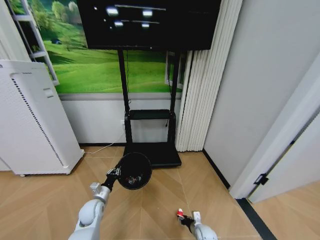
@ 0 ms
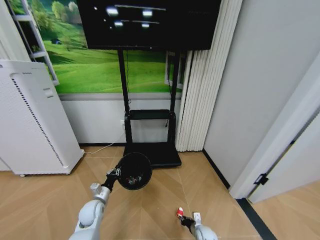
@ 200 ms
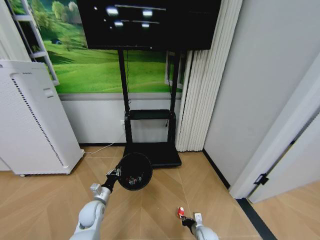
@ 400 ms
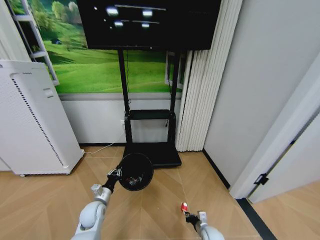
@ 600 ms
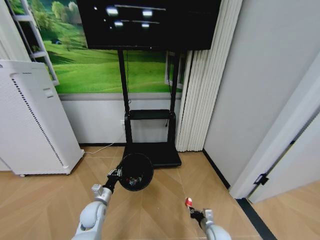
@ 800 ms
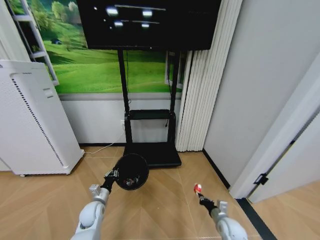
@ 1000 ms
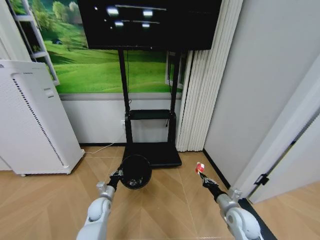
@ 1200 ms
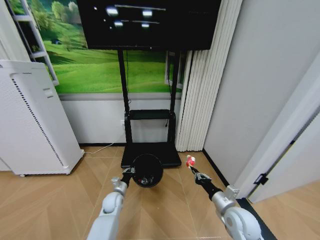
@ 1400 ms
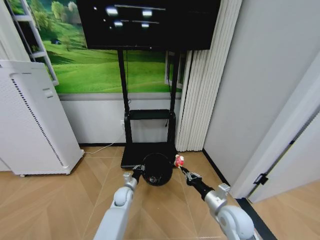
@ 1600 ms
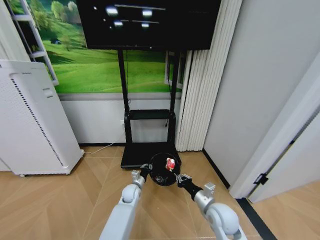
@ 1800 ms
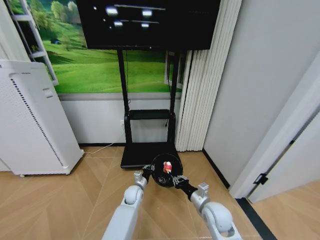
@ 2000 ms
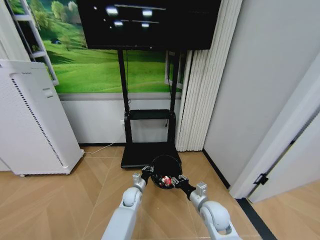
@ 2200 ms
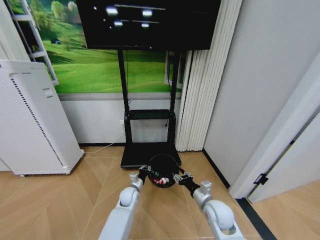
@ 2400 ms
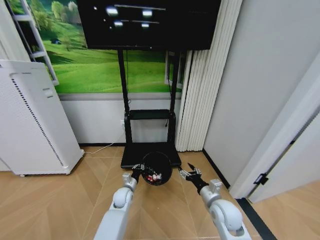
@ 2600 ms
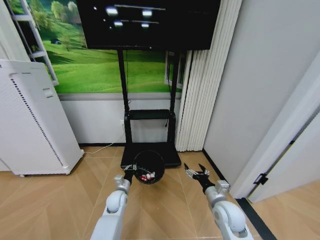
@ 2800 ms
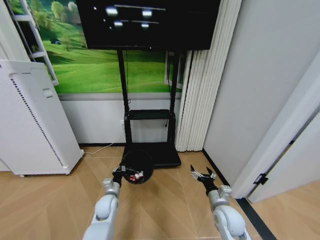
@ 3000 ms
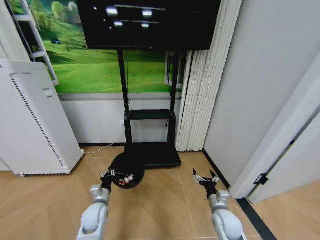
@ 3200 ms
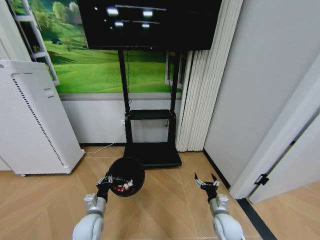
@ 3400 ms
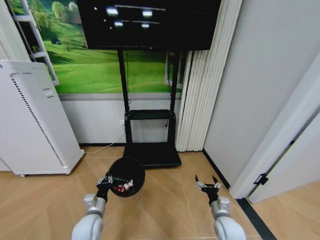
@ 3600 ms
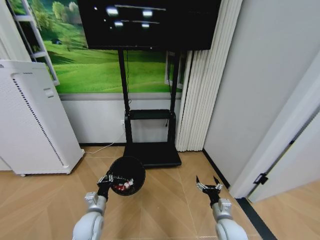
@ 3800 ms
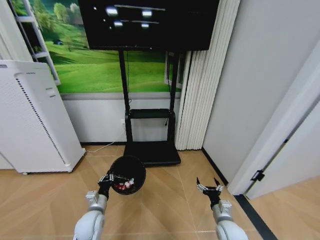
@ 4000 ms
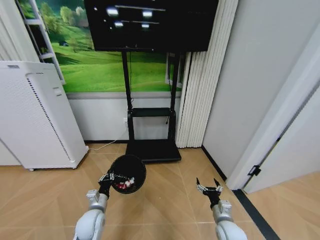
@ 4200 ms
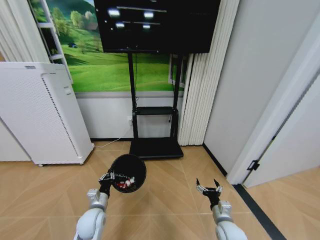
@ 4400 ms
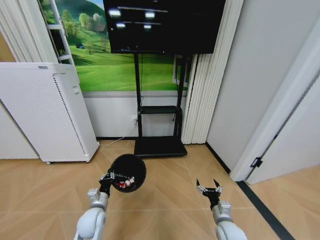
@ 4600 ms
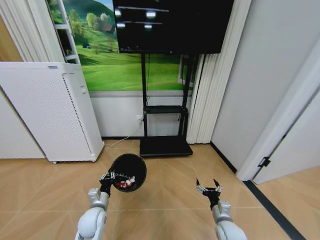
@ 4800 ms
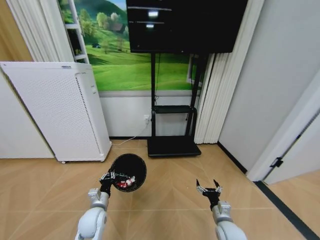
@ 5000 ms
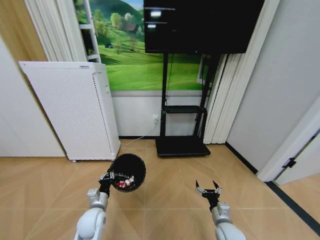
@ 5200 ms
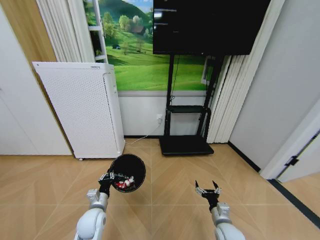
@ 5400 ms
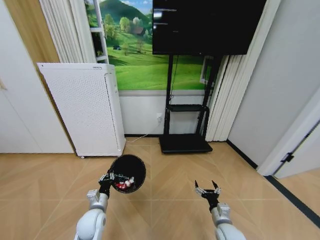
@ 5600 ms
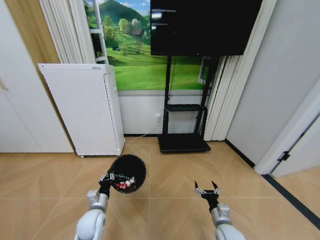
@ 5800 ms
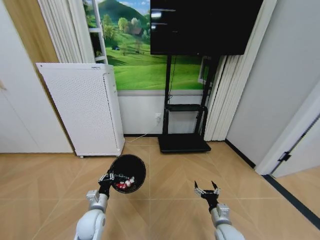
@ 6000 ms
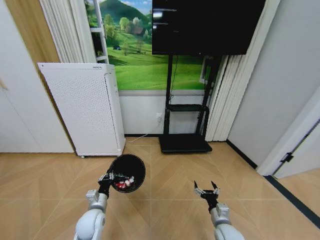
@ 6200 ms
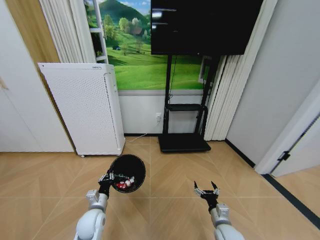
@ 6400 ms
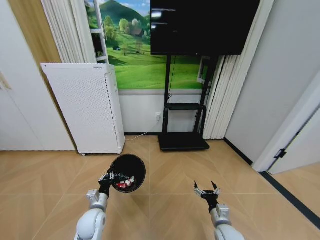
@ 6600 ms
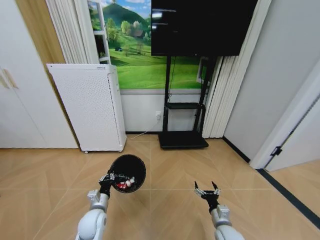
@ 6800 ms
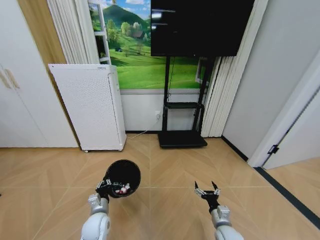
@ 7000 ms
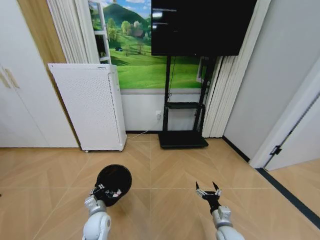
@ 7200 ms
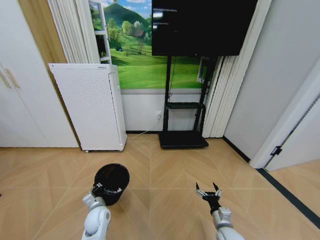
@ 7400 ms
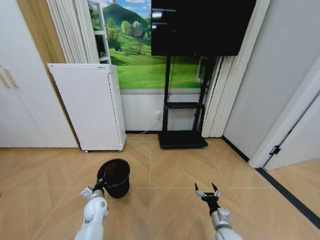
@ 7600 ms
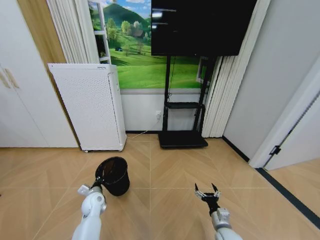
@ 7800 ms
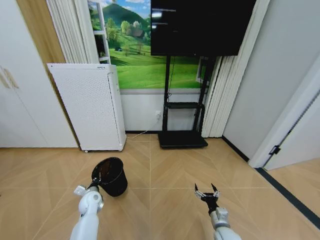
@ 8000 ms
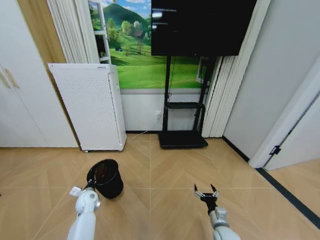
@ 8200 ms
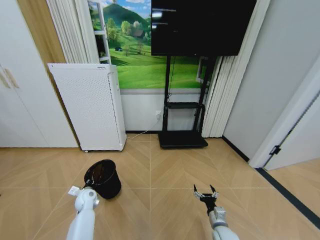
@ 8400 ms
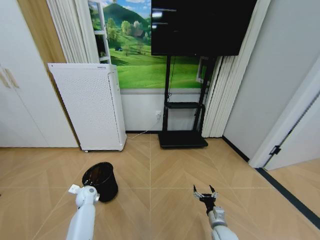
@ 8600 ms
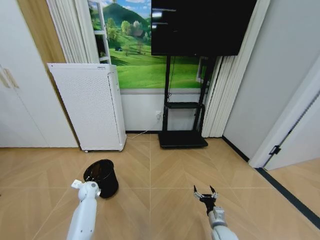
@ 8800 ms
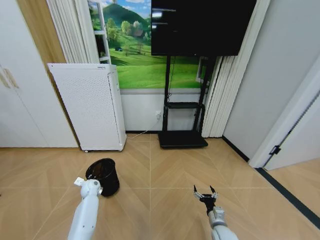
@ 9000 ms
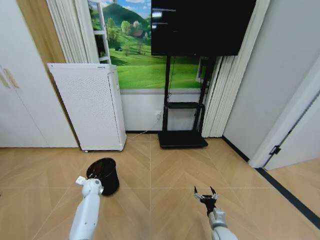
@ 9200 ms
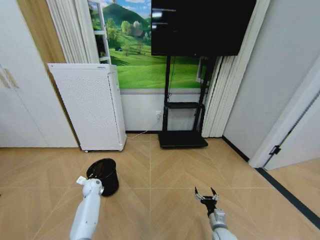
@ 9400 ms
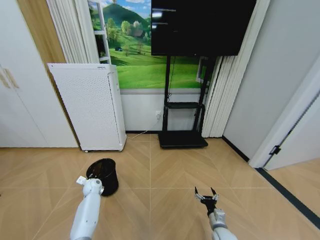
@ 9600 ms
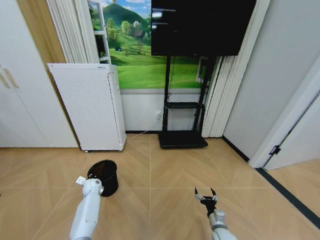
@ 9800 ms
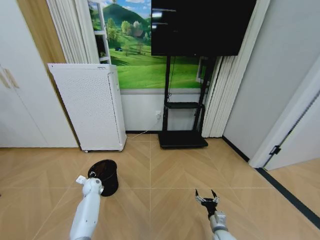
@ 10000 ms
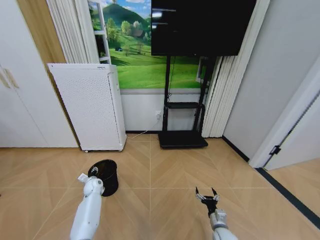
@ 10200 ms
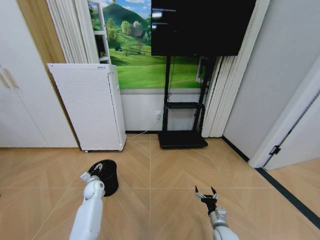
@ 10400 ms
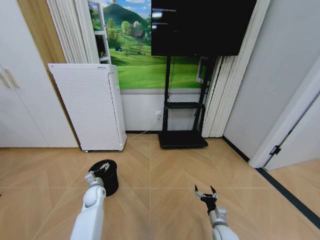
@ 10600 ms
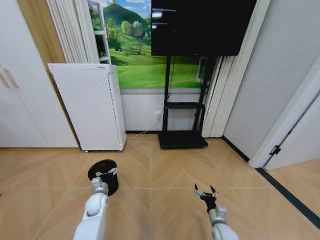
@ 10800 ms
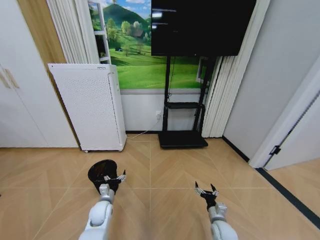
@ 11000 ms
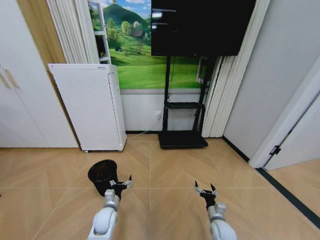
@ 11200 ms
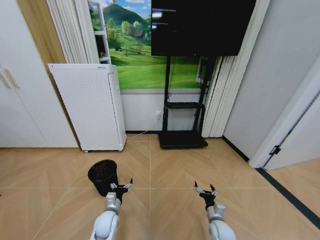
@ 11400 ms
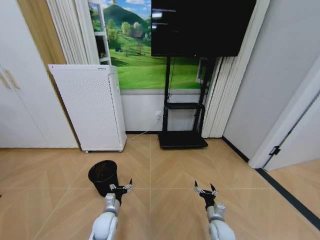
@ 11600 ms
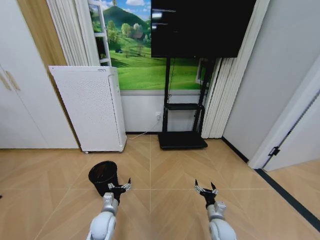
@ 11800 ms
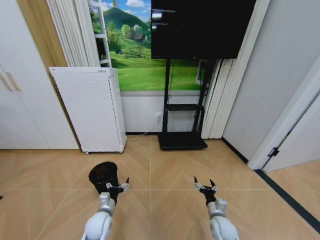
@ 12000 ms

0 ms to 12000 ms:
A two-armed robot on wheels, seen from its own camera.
Task of the whole recording: Pick up the trash bin and place the garbage on the floor into it.
0 ms to 1600 ms: The left gripper travels to the right and forward by some 15 cm. The right gripper moves upward, some 30 cm, and closes up.
1600 ms to 3000 ms: The right gripper opens its fingers. Meanwhile the left gripper is displaced backward and to the left by approximately 10 cm.
3000 ms to 4400 ms: The right gripper is displaced downward by approximately 5 cm, while the left gripper heads backward, covering some 10 cm.
6000 ms to 7600 ms: The left gripper shifts approximately 5 cm forward.
7600 ms to 9000 ms: The left gripper travels forward and to the left by roughly 15 cm.
9000 ms to 10400 ms: The left gripper opens.
10400 ms to 12000 ms: The left gripper is displaced backward and to the right by some 20 cm. Meanwhile the right gripper moves roughly 5 cm.

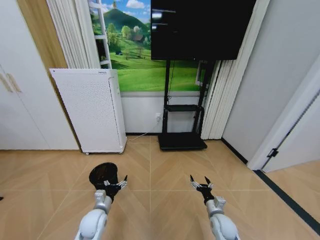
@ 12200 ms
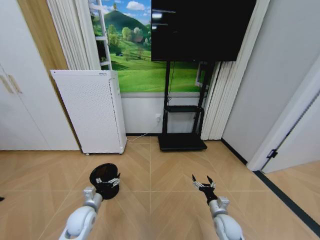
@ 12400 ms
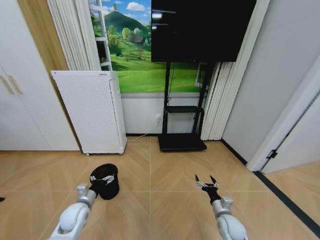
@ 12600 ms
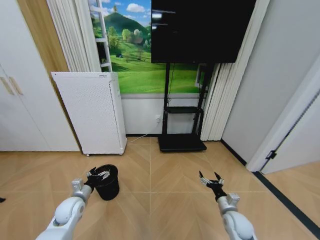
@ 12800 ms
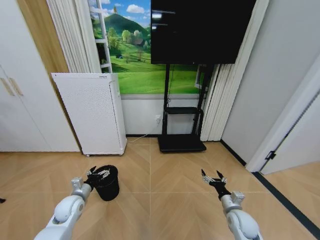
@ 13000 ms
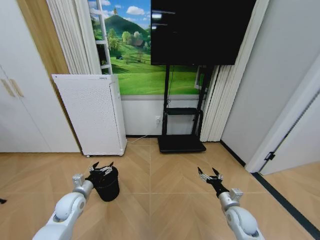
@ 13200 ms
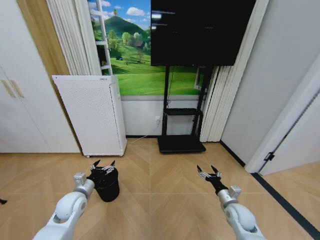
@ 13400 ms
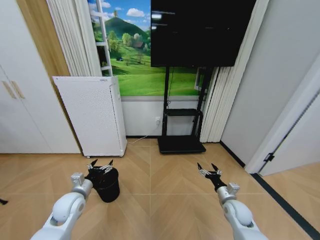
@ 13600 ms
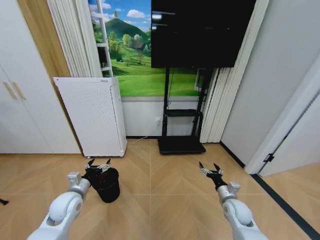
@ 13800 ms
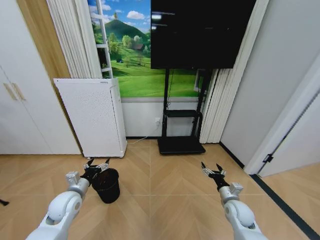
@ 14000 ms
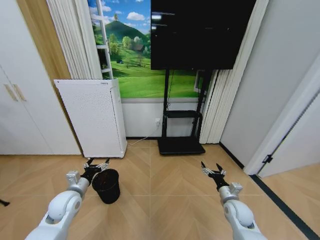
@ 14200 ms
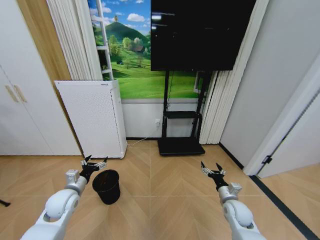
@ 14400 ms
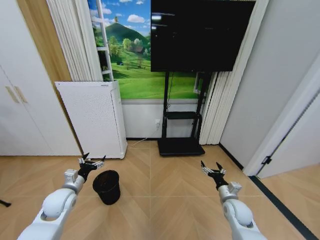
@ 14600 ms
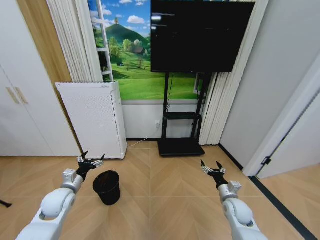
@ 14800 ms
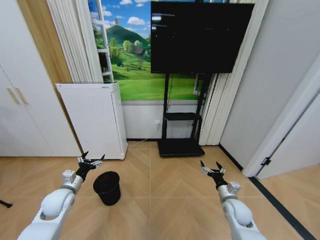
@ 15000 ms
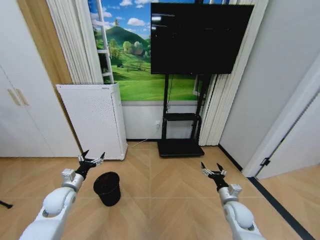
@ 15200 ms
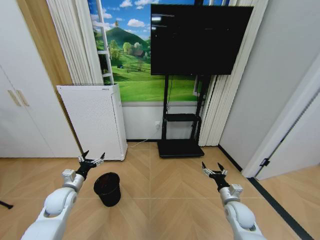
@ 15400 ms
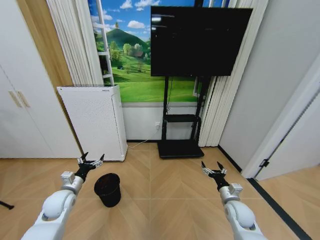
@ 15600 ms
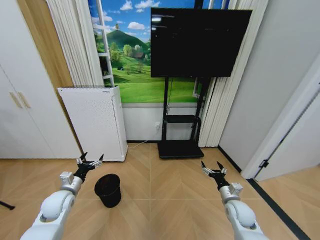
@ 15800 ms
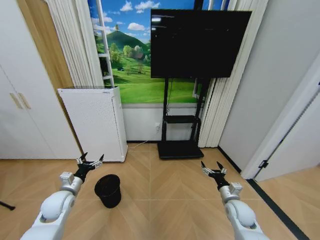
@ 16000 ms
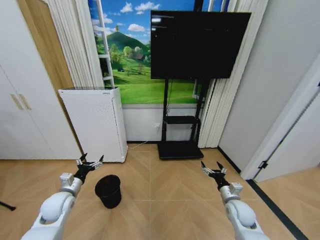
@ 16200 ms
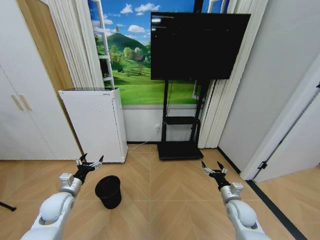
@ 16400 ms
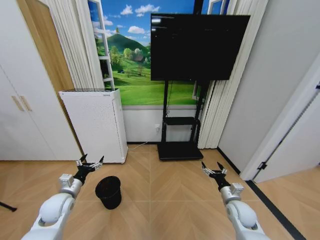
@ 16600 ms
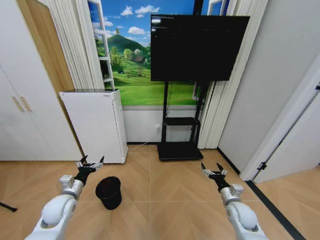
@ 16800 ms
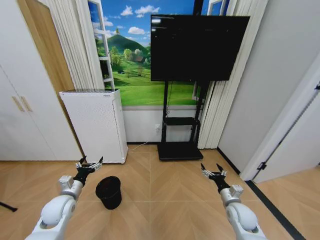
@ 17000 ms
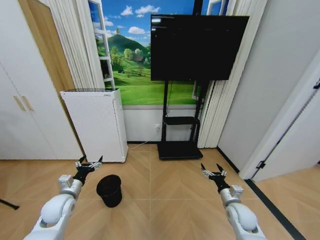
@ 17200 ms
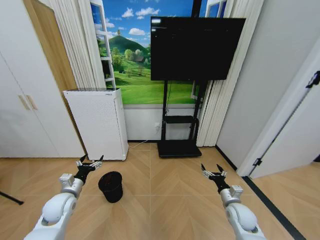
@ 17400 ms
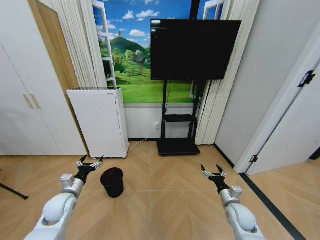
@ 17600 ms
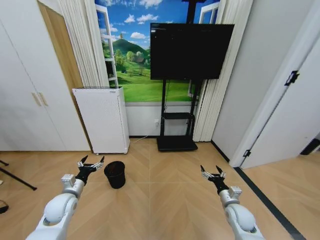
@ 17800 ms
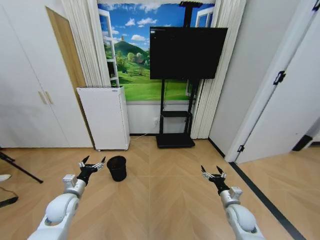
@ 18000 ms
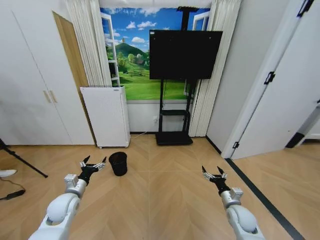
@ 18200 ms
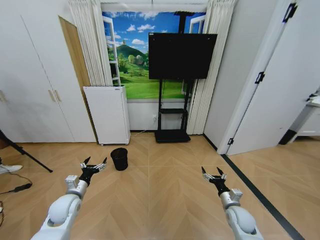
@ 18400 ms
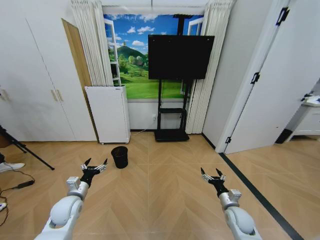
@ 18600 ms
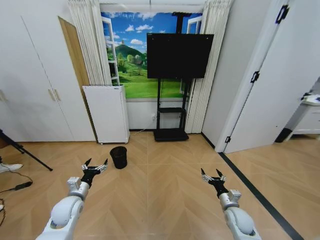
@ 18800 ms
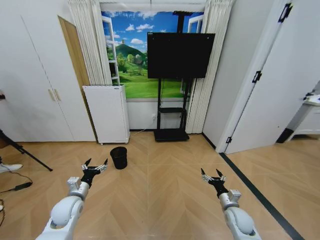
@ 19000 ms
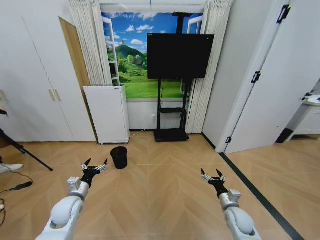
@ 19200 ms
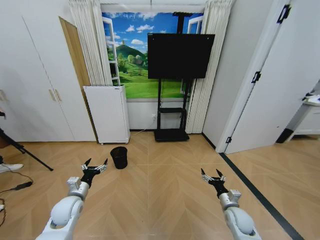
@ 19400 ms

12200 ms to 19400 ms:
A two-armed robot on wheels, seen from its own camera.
Task of the whole recording: Pick up the trash bin and place the garbage on the floor into it.
12200 ms to 13600 ms: The left gripper is displaced upward and to the left by some 10 cm, while the right gripper is displaced upward and to the right by about 10 cm.
13600 ms to 15000 ms: The left gripper shifts about 5 cm to the left.
15000 ms to 16600 ms: The grippers stay close to where they were, moving slightly.

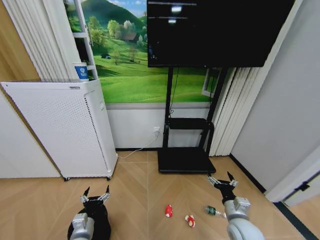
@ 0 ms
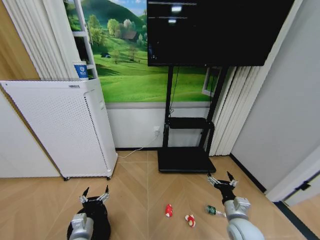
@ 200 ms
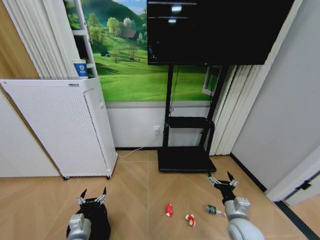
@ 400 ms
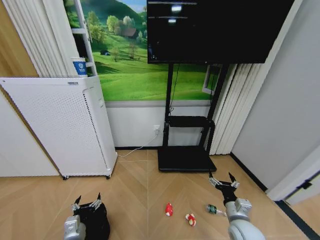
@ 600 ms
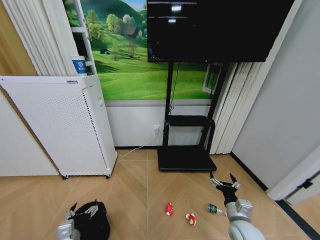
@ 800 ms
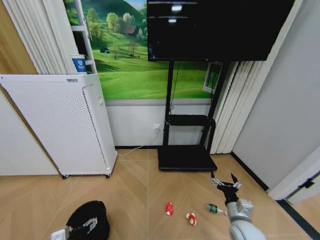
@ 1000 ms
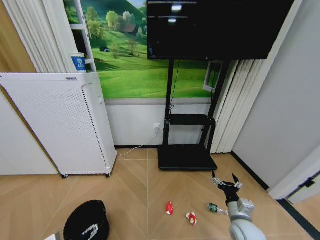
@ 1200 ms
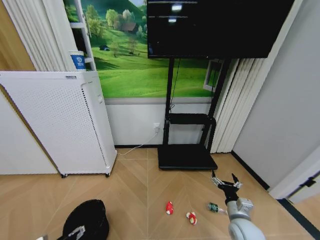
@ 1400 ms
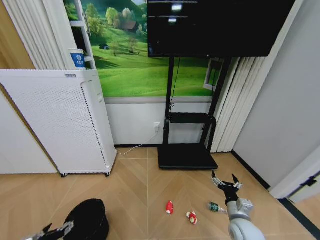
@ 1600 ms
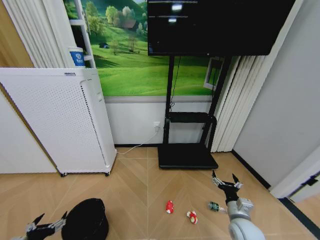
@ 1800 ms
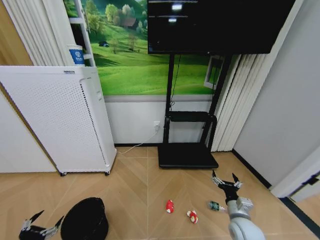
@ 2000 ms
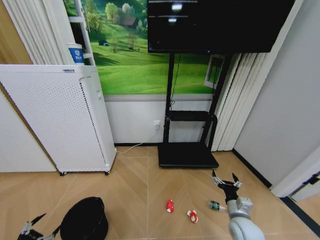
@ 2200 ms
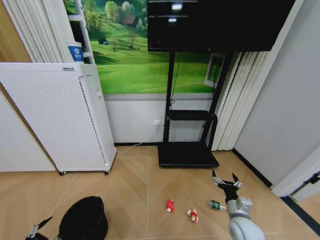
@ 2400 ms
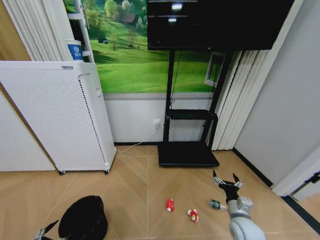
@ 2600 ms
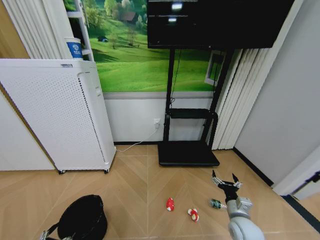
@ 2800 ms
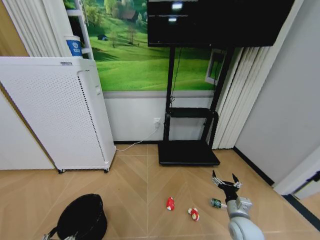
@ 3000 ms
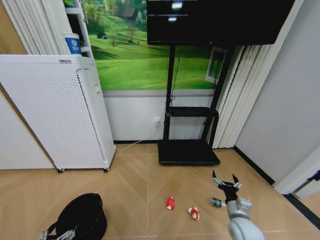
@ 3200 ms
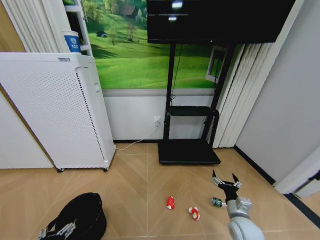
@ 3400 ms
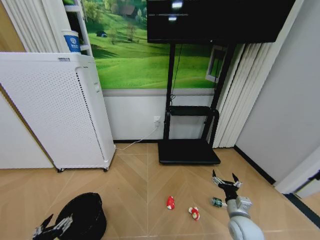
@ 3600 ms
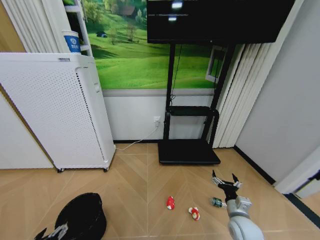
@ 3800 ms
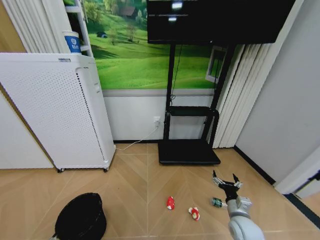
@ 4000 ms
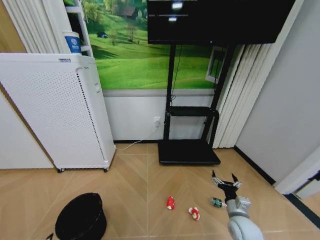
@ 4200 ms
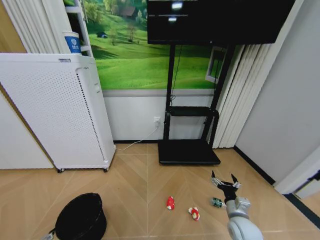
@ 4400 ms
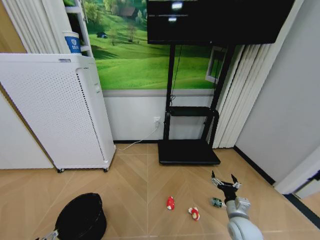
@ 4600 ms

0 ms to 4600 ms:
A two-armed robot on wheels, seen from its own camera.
Task of the whole recording: Pick up the trash bin and place the garbage on the floor into it.
0 ms to 1600 ms: The left gripper shifts some 15 cm to the left, backward and upward.
1600 ms to 3000 ms: The left gripper travels backward by some 5 cm.
